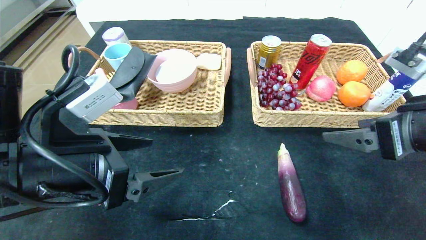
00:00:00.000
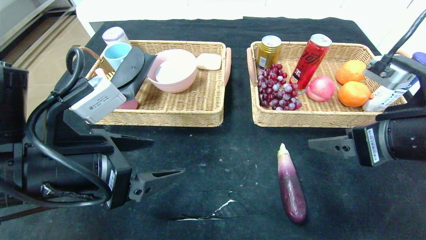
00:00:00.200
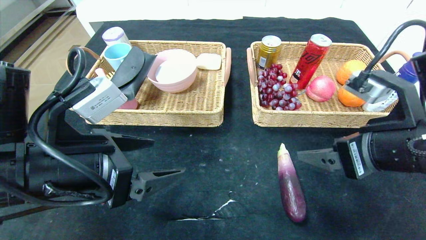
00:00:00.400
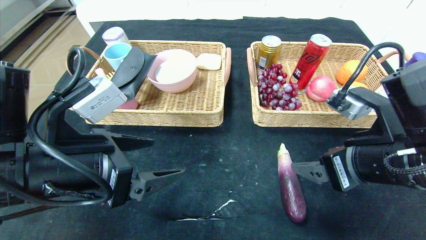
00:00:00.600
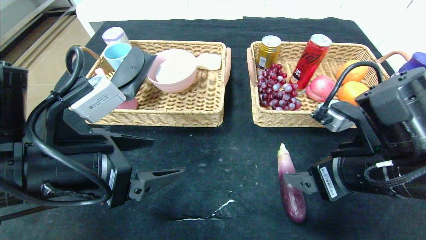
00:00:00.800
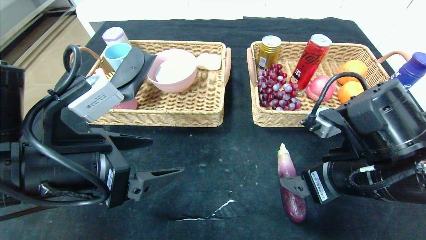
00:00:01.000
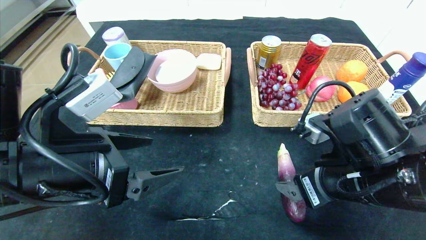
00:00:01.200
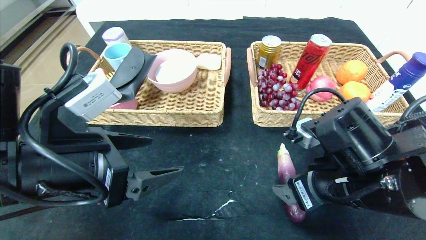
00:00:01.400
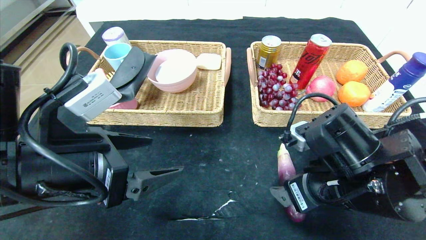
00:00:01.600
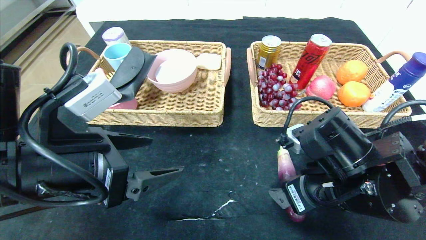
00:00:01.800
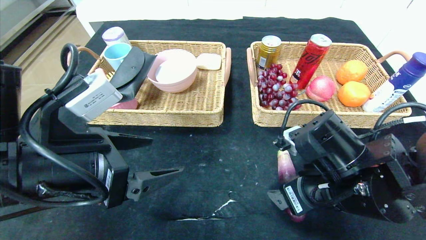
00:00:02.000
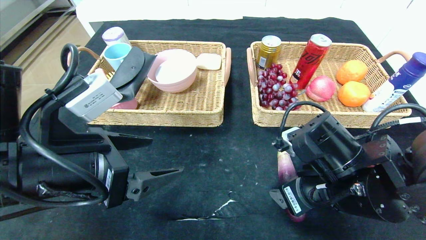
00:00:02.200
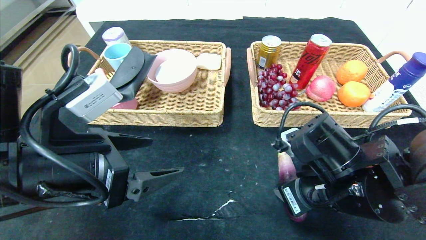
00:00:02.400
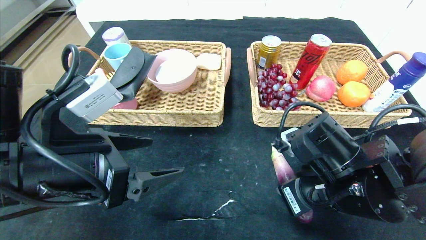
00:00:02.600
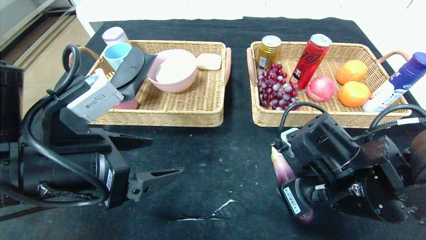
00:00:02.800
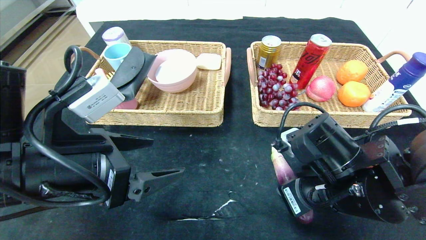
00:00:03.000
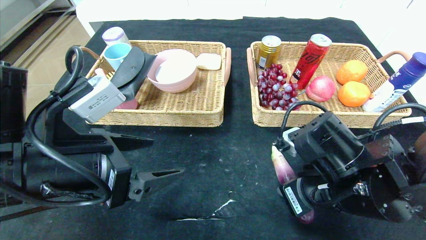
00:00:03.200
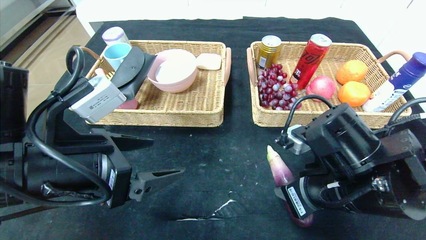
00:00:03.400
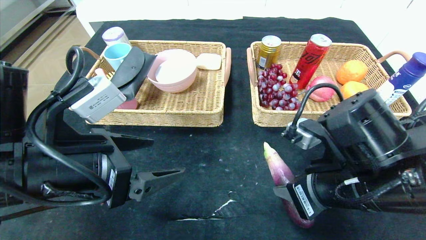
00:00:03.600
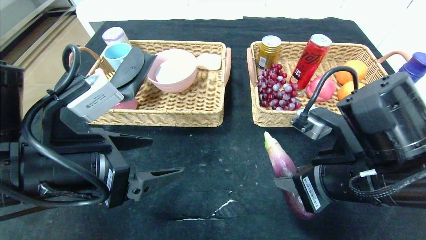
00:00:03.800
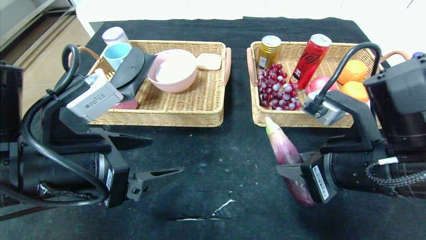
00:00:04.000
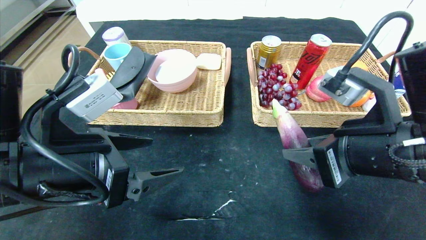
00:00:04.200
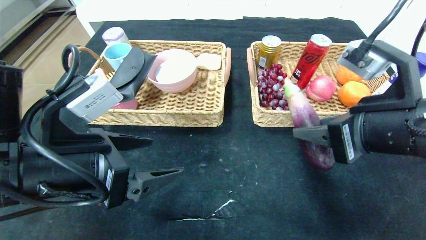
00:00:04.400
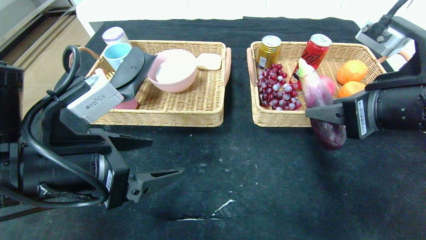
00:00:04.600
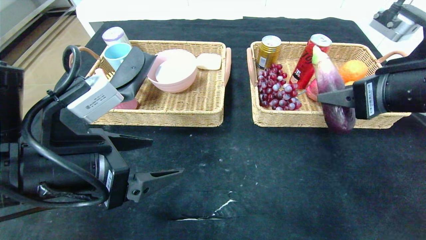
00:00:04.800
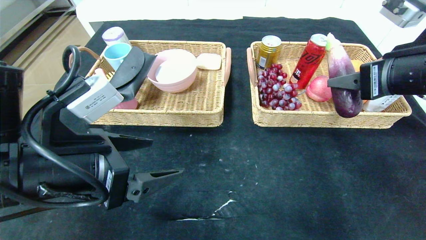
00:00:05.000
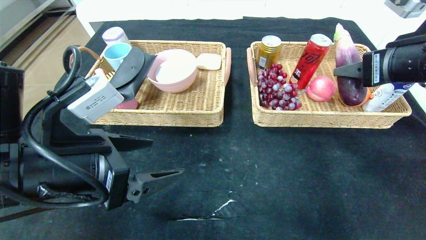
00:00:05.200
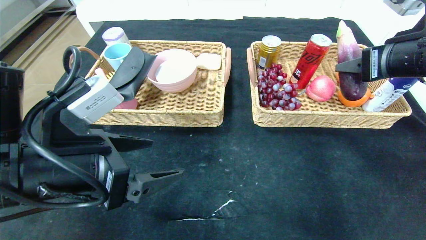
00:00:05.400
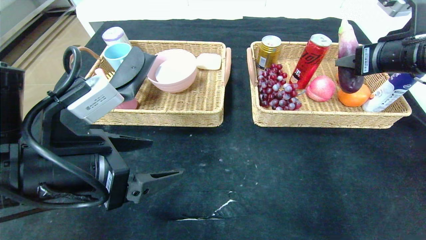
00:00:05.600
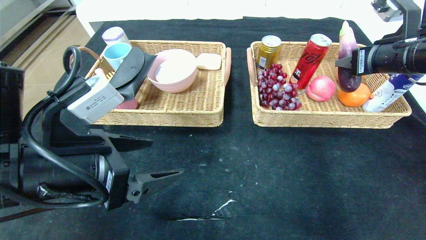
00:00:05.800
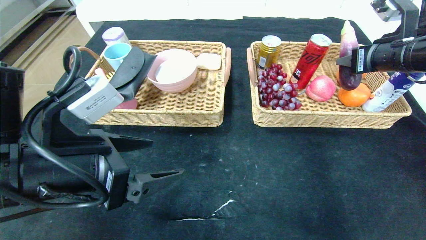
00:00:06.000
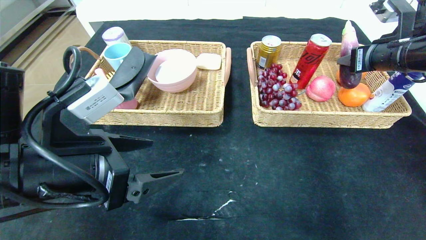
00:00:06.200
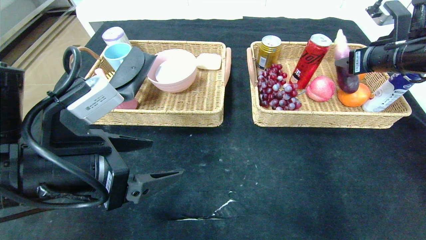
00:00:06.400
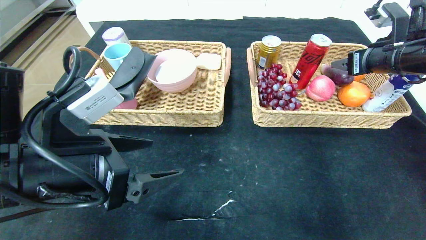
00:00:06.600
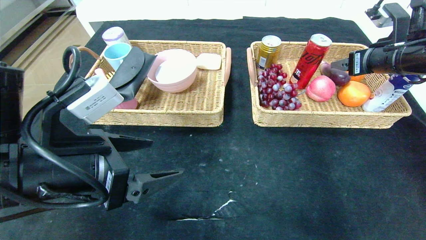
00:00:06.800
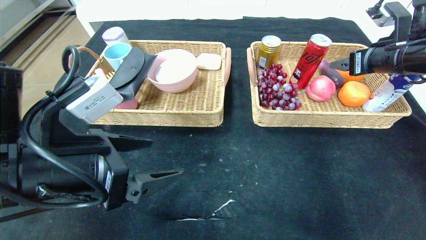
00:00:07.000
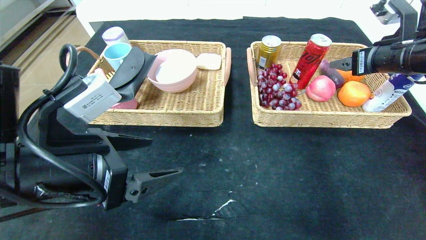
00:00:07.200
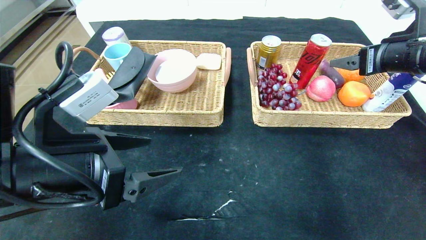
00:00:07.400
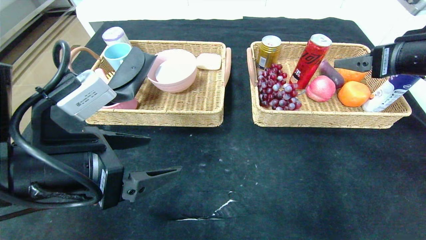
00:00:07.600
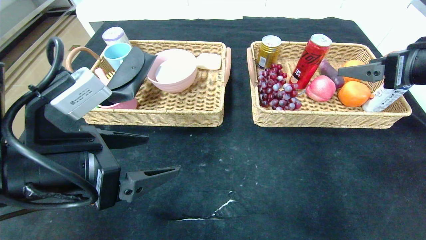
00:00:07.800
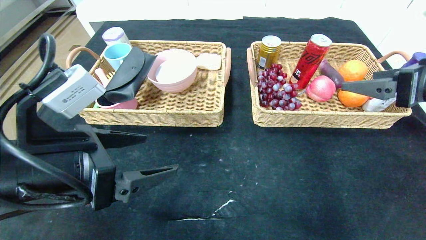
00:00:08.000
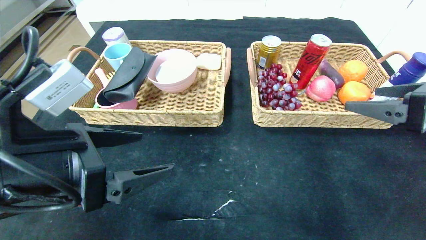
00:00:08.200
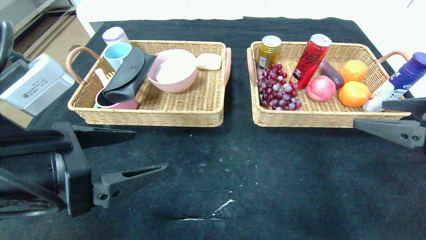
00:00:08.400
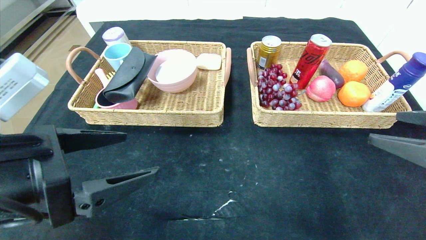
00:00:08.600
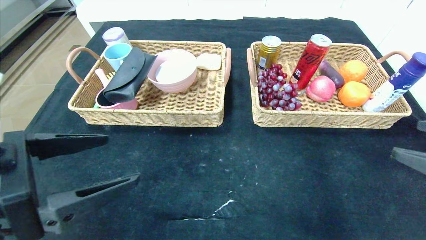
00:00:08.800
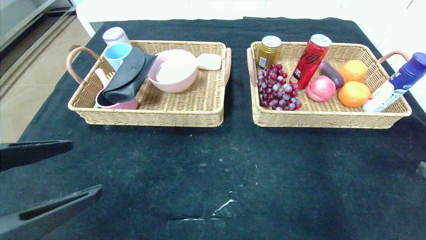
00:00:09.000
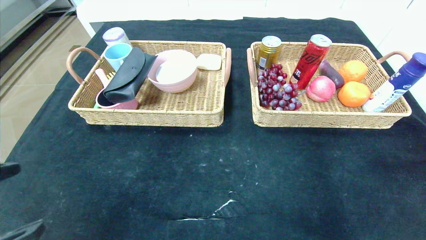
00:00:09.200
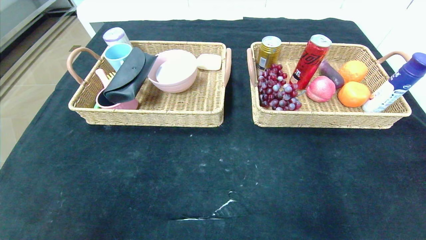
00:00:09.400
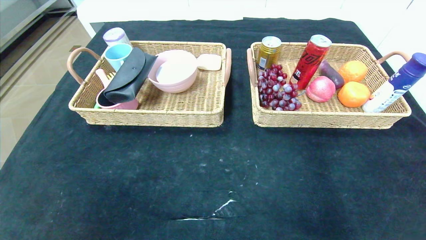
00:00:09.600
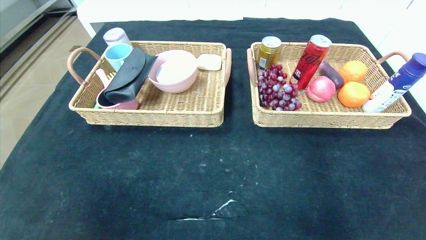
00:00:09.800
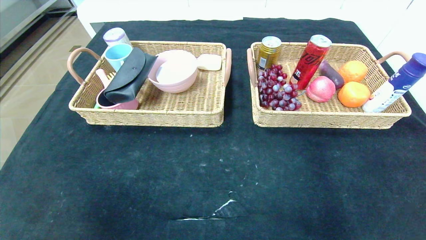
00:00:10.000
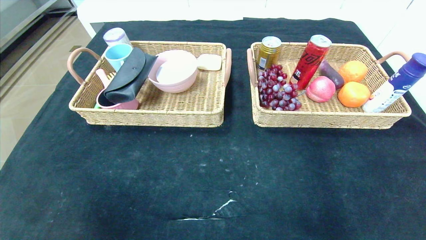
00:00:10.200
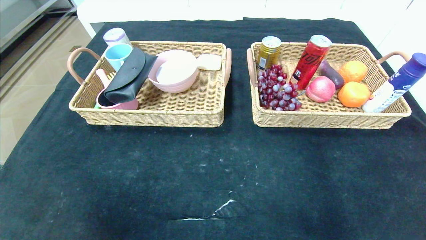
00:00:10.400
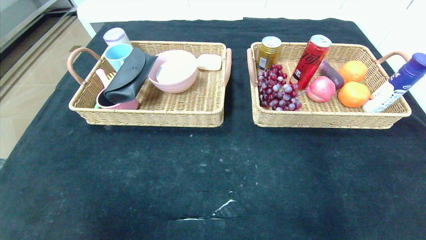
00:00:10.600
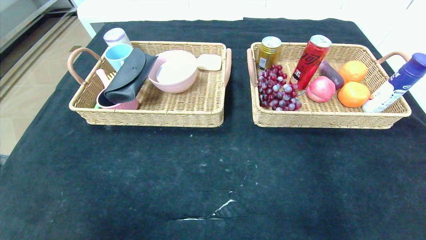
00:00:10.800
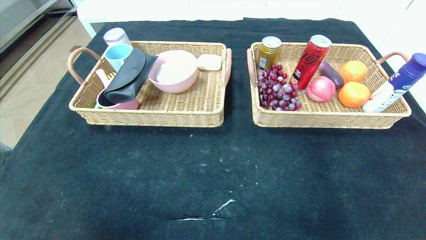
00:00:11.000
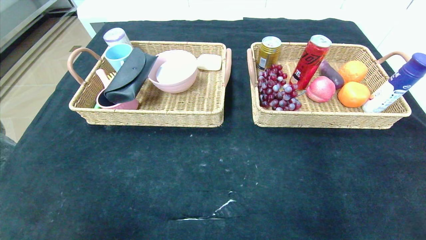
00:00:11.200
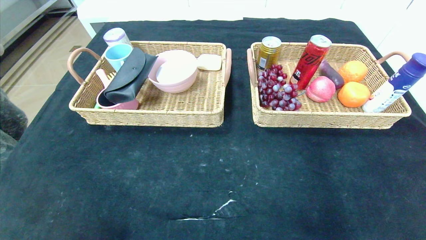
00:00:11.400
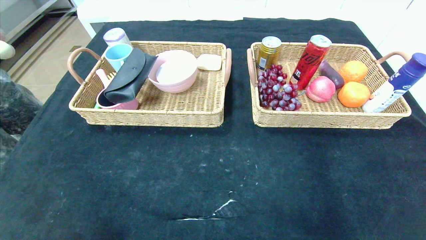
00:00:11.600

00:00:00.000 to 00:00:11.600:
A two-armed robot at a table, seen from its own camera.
Step, 00:00:00.000 to 00:00:06.600: Grasp the eggplant and put it in the right basket.
00:00:00.000 to 00:00:01.400: The right gripper shifts approximately 15 cm to the left and downward.
00:00:01.400 to 00:00:02.800: The right gripper closes.
00:00:02.800 to 00:00:04.400: The right gripper travels upward by approximately 10 cm.
00:00:04.400 to 00:00:05.800: The right gripper moves forward and to the right, approximately 15 cm.
00:00:05.800 to 00:00:07.200: The right gripper opens its fingers.
00:00:07.200 to 00:00:08.800: The left gripper goes about 5 cm backward, while the right gripper heads backward, covering approximately 25 cm.
00:00:08.800 to 00:00:10.200: The left gripper goes about 20 cm backward and to the left; the right gripper goes some 20 cm backward and downward.
00:00:10.200 to 00:00:11.600: The left gripper is displaced downward by some 15 cm.

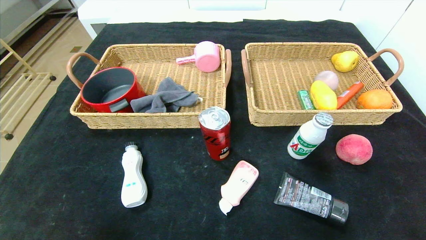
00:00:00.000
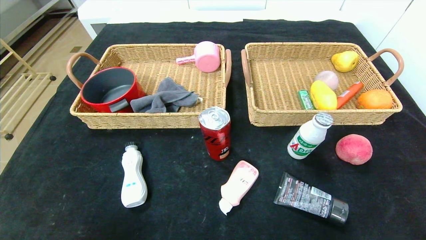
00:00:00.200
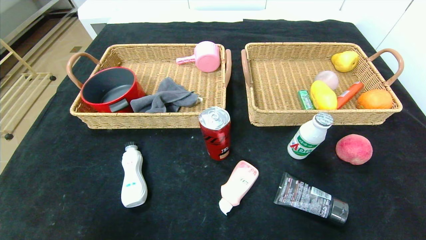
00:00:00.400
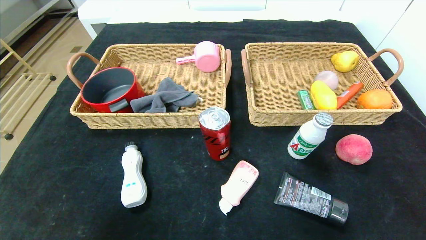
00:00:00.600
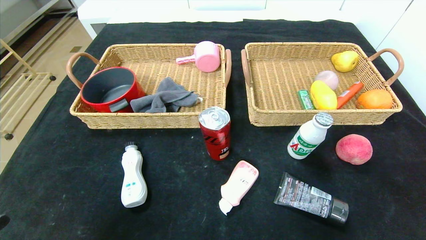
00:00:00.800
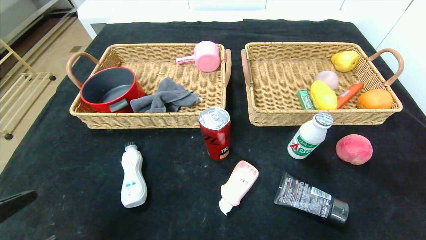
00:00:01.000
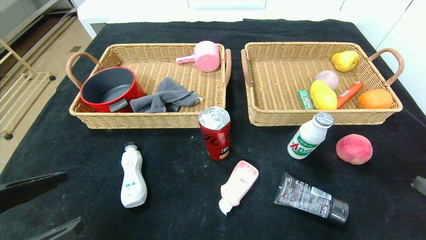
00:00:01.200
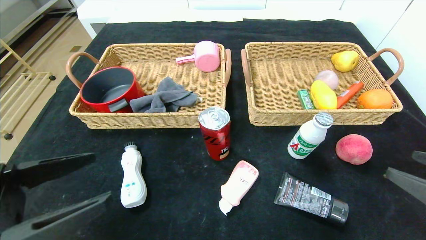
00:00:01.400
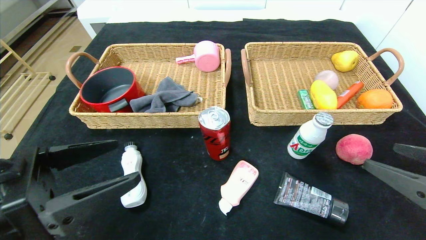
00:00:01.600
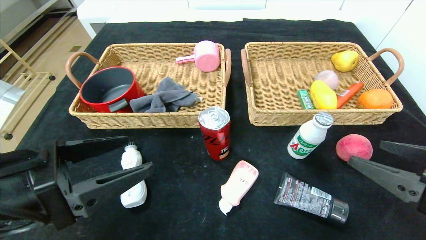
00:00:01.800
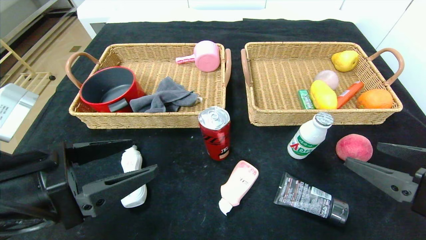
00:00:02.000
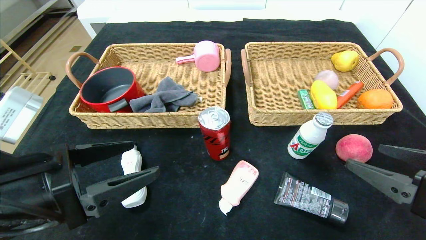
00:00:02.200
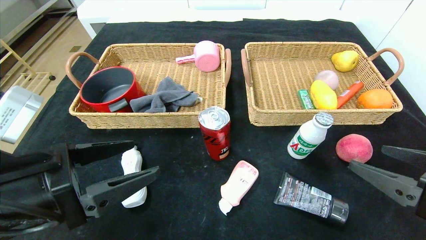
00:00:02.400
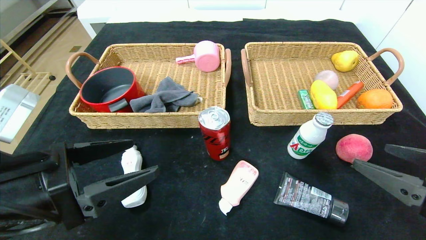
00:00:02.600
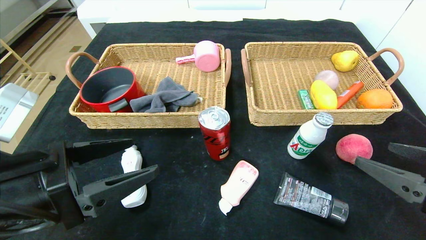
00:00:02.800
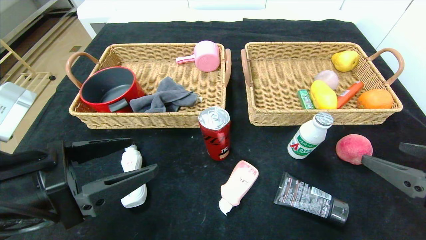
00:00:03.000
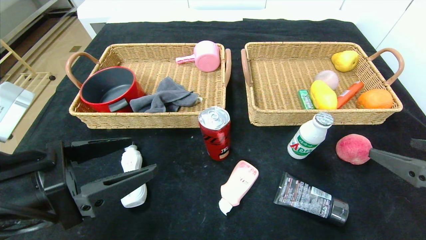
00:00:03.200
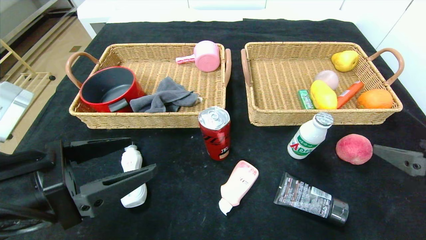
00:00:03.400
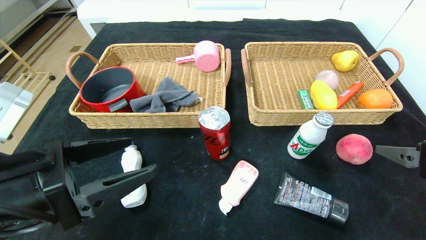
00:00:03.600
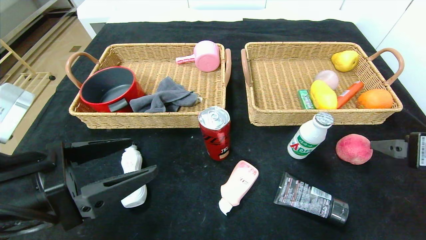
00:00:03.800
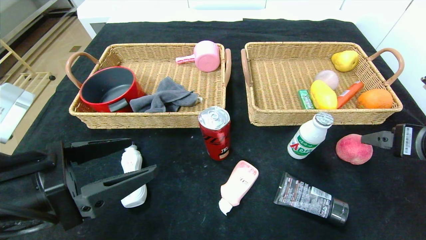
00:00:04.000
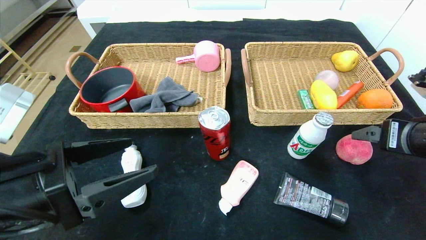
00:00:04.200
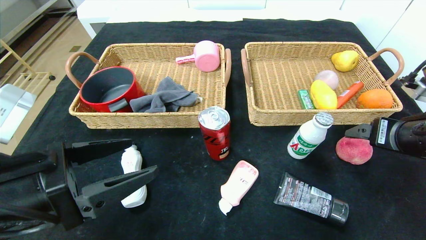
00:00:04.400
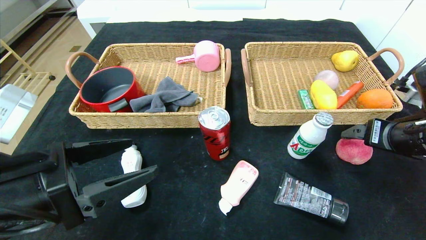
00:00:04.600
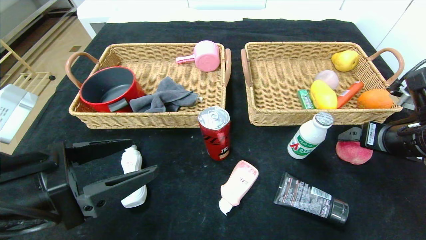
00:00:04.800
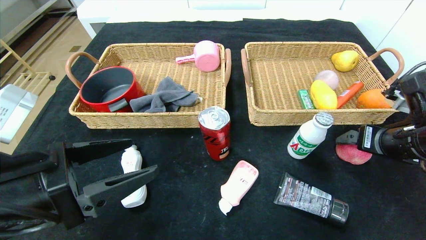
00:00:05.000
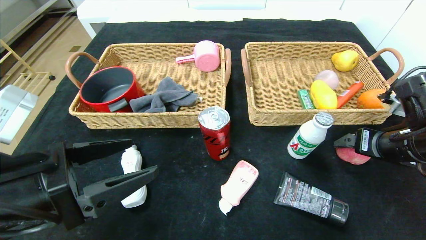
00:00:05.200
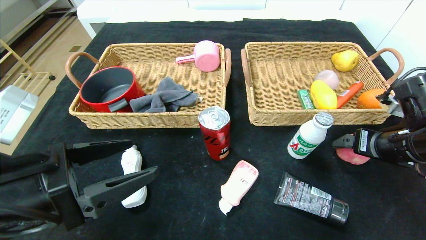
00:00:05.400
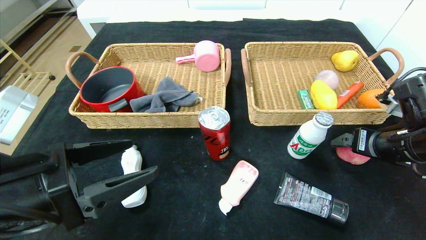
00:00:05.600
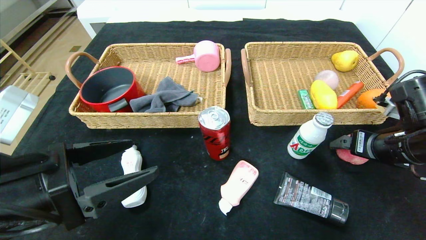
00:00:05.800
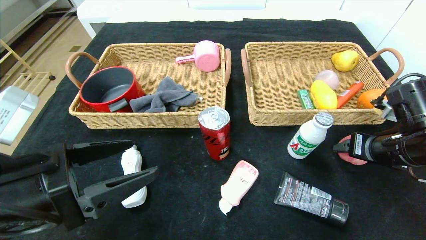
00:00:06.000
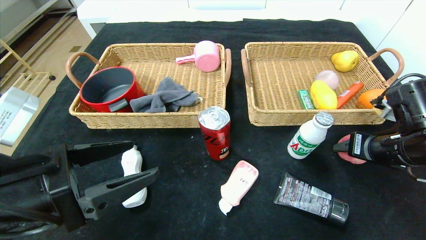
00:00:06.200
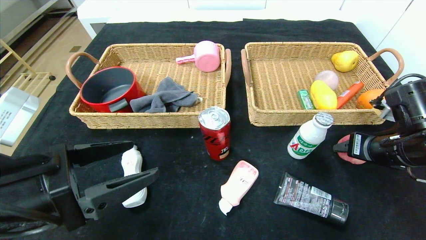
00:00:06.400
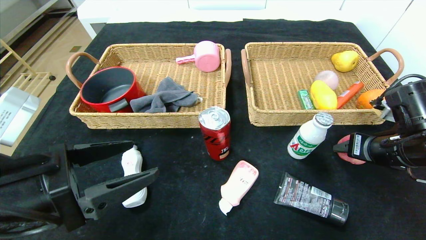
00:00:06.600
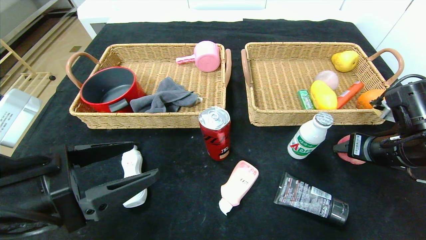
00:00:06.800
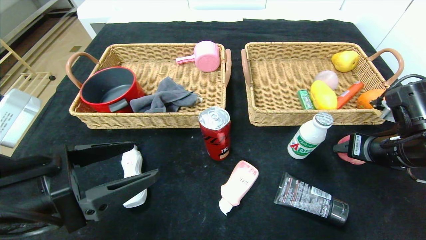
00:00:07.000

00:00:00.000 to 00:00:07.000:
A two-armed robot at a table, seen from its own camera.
00:00:00.000 to 00:00:01.400: Both grippers move upward and forward, about 20 cm.
00:00:01.400 to 00:00:02.800: The grippers move only a little.
00:00:02.800 to 00:00:04.200: The right gripper heads forward, covering approximately 10 cm.
00:00:04.200 to 00:00:05.600: The right gripper shifts by about 5 cm.
00:00:05.600 to 00:00:07.000: The right gripper closes.
